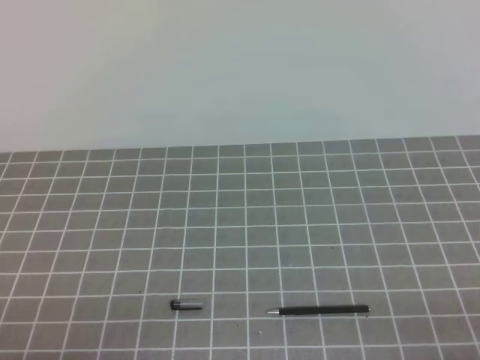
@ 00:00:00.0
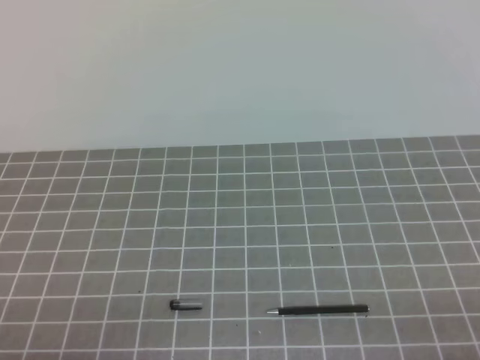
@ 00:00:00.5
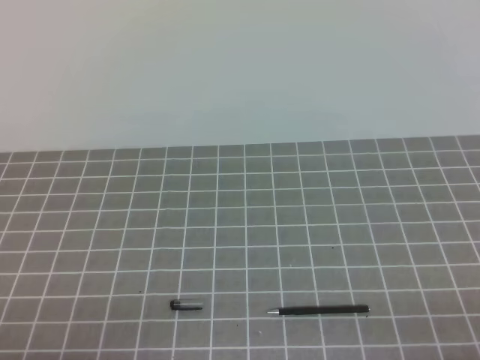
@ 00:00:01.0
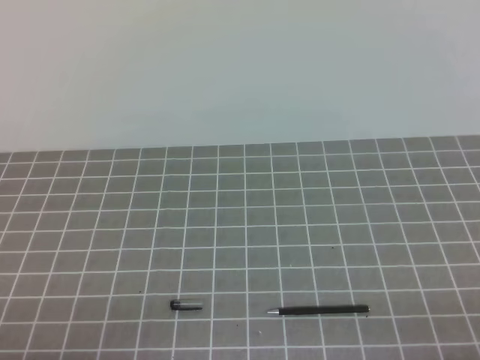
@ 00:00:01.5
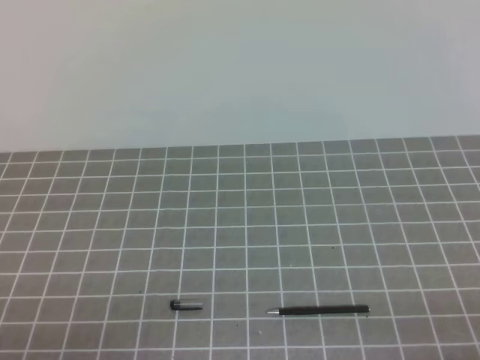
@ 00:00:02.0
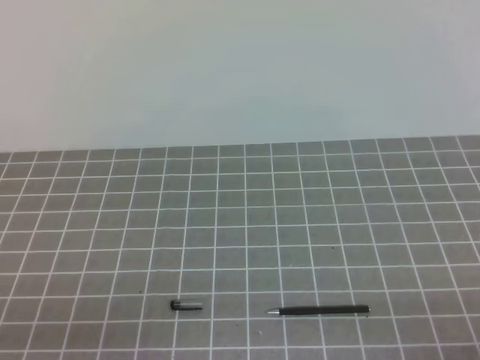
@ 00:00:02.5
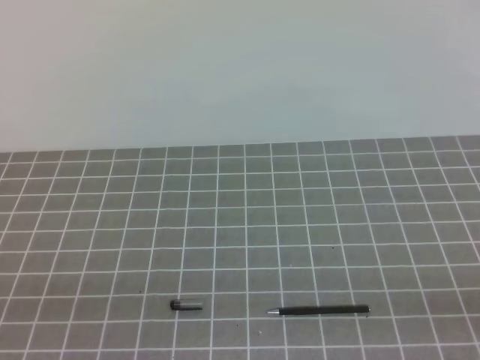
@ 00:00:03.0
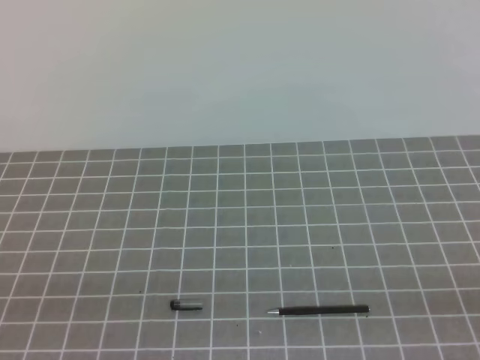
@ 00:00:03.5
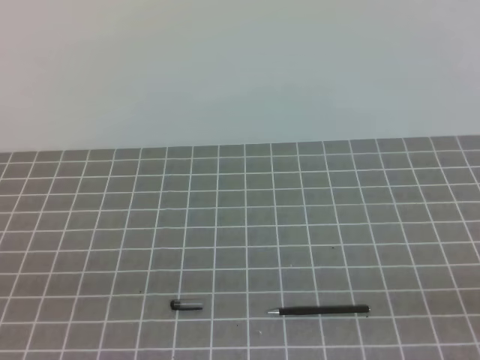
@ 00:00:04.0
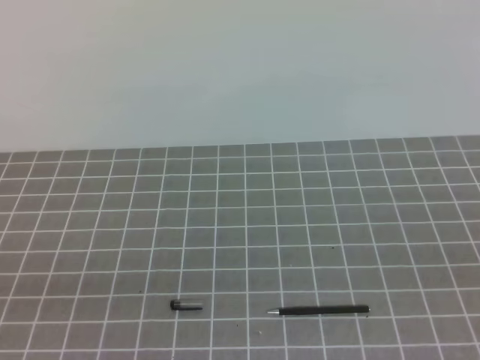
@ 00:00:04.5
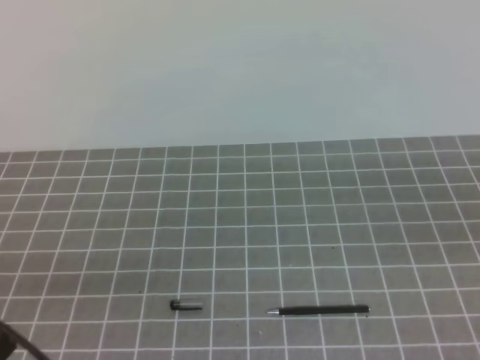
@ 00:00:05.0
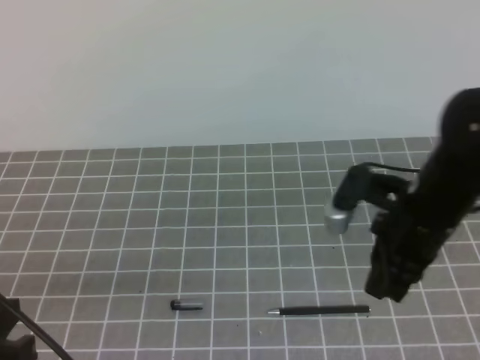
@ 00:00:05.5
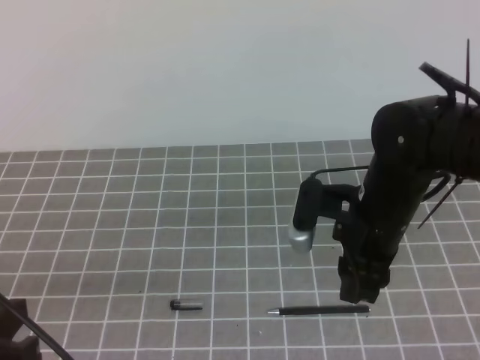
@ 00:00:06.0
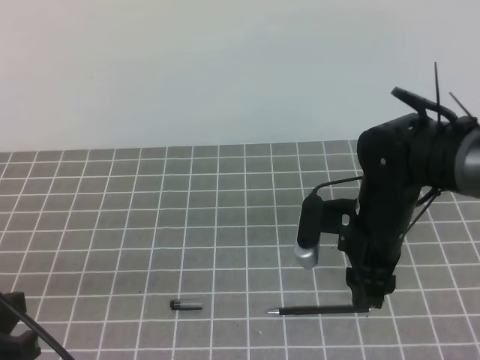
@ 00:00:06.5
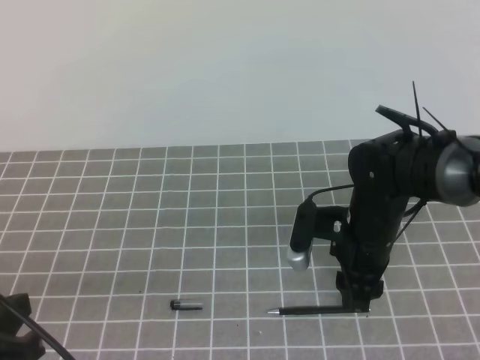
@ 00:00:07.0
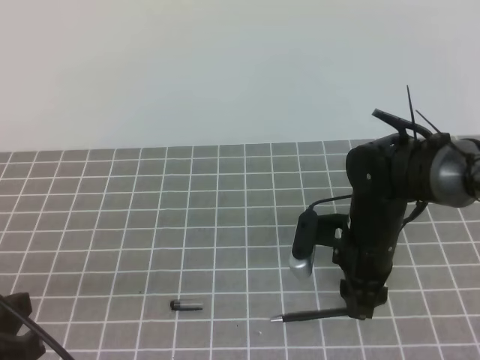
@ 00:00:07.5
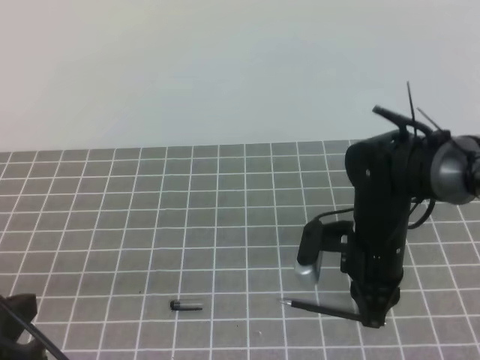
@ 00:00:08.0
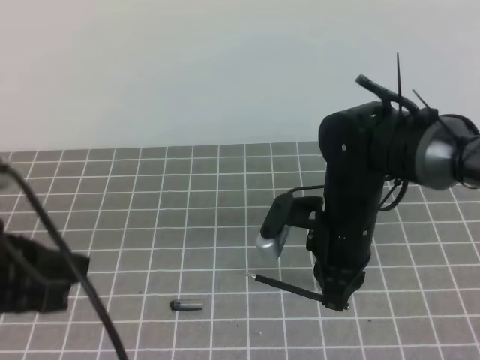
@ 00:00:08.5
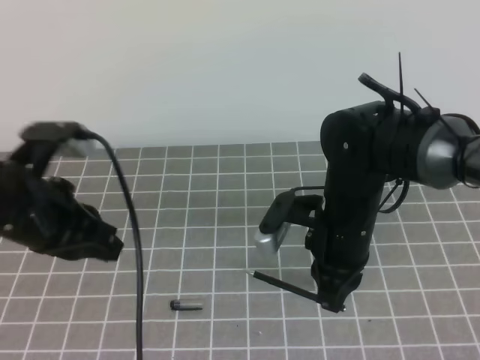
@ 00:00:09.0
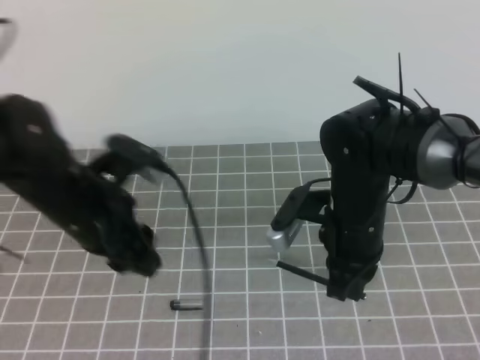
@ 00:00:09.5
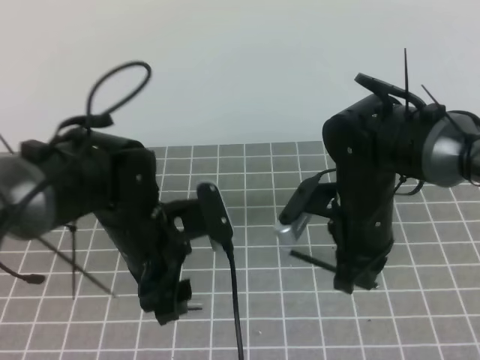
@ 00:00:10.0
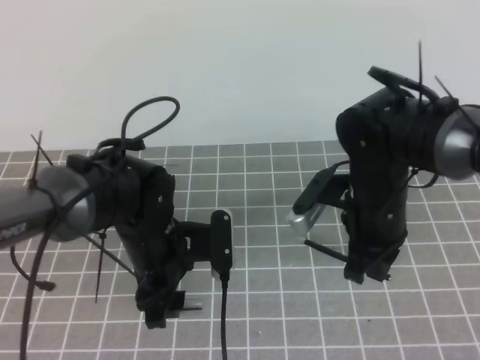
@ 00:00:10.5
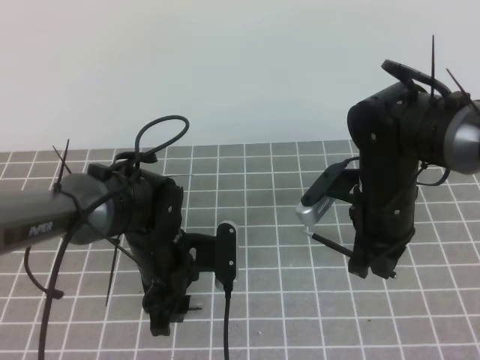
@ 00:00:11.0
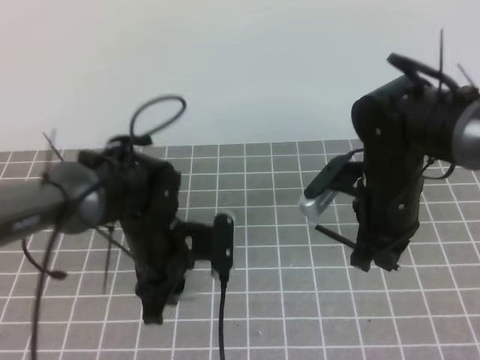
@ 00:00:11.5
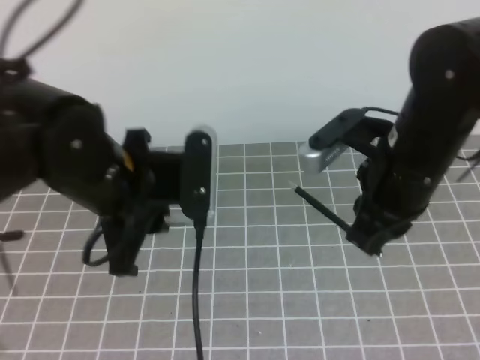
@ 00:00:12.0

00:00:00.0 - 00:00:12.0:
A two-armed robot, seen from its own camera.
Task of the whole recording: on the grey tablecloth, hold the pen cap in one hand and the pen in the other, then cover the pen cap.
00:00:04.0 - 00:00:06.0: The left gripper goes roughly 10 cm forward. The right gripper is displaced forward and to the left by roughly 35 cm, and opens up.
00:00:06.0 - 00:00:08.0: The right gripper goes roughly 5 cm downward, and closes its fingers.
00:00:08.0 - 00:00:10.0: The left gripper moves forward and to the right, approximately 20 cm, and opens up.
00:00:10.0 - 00:00:12.0: The grippers both shift upward by some 5 cm. The left gripper closes up.

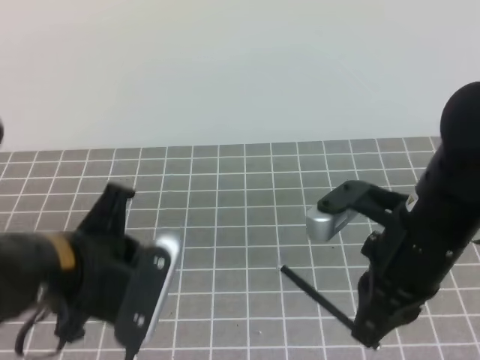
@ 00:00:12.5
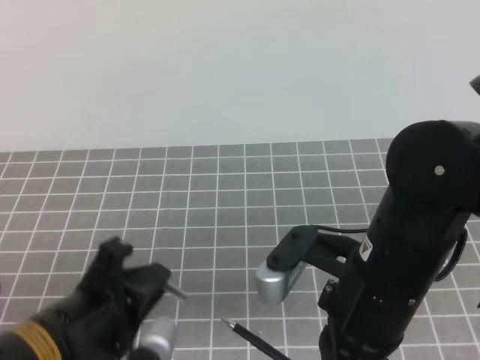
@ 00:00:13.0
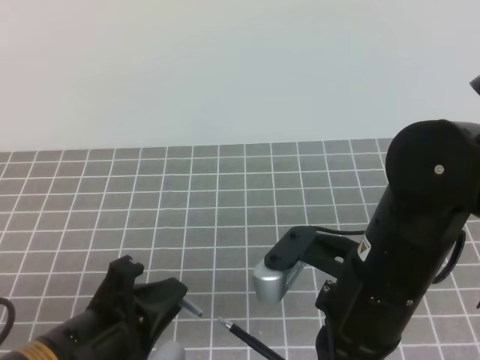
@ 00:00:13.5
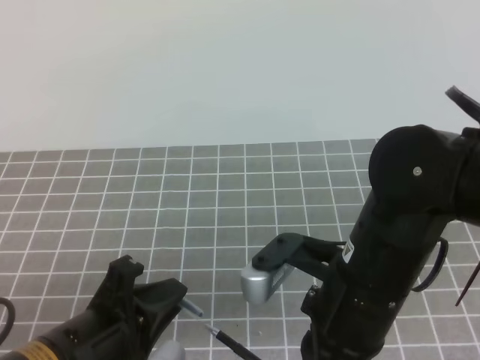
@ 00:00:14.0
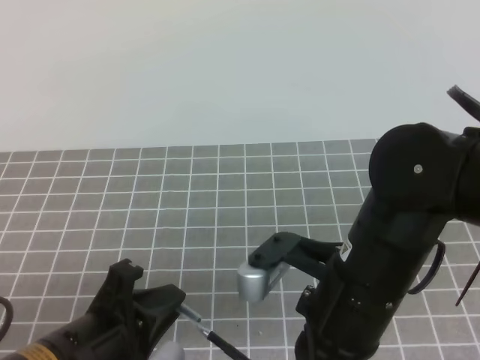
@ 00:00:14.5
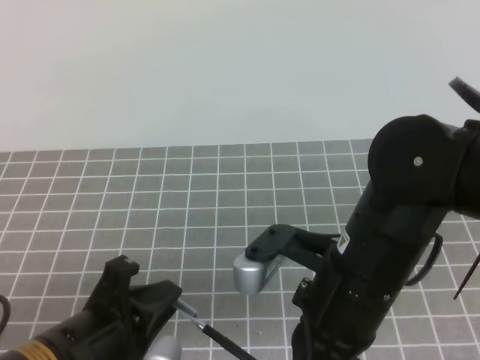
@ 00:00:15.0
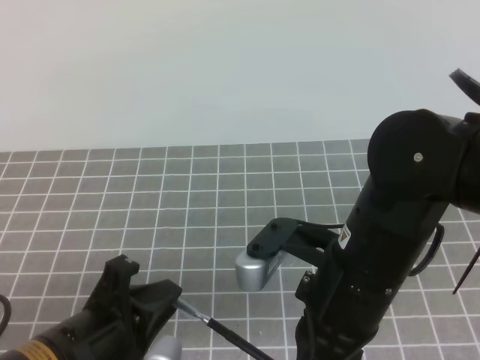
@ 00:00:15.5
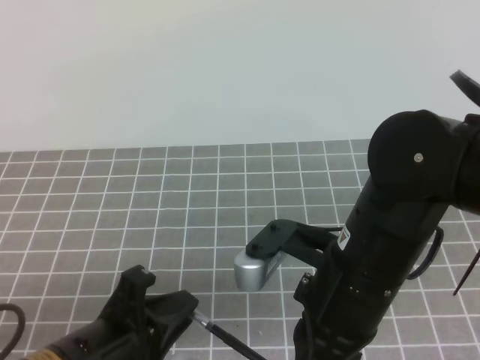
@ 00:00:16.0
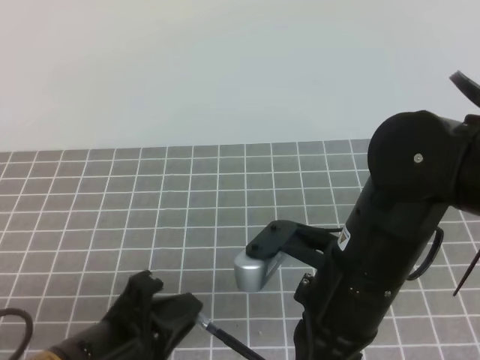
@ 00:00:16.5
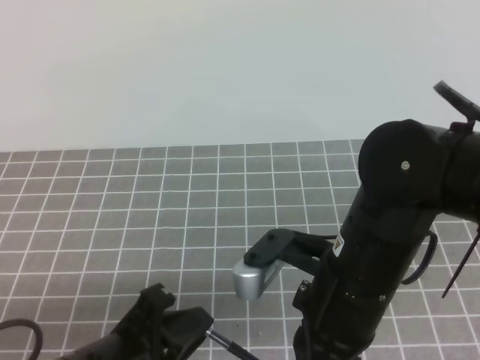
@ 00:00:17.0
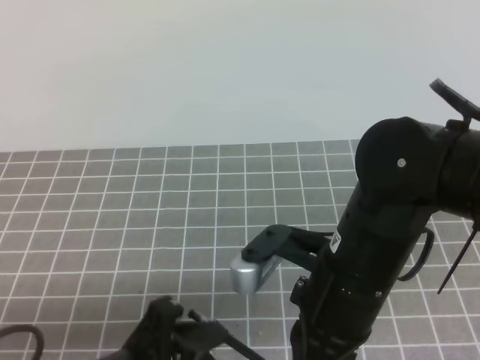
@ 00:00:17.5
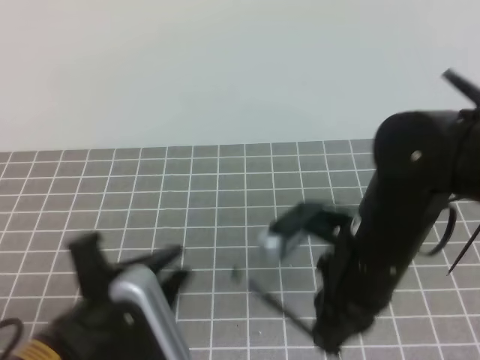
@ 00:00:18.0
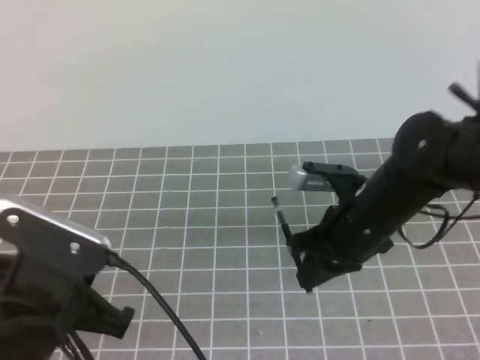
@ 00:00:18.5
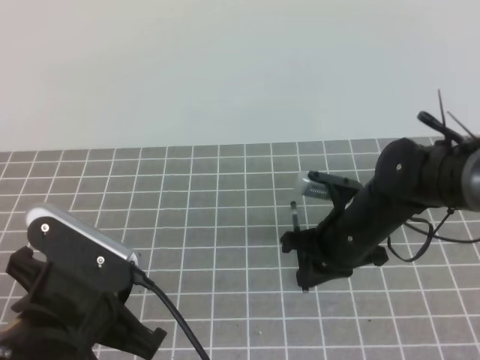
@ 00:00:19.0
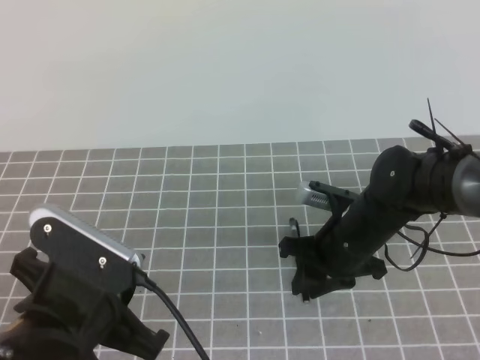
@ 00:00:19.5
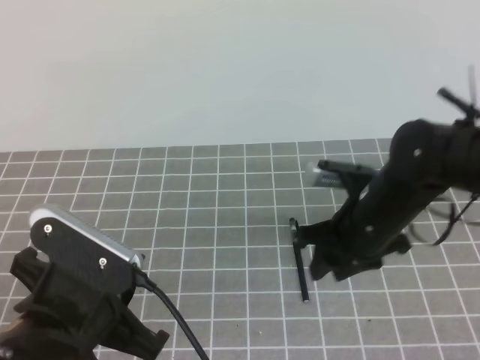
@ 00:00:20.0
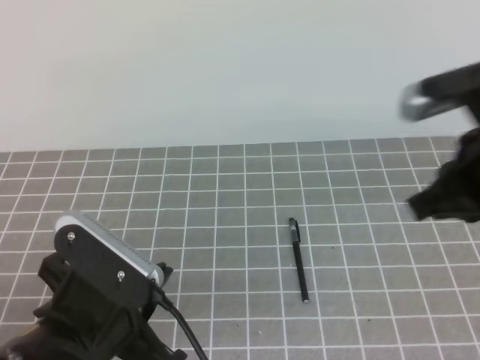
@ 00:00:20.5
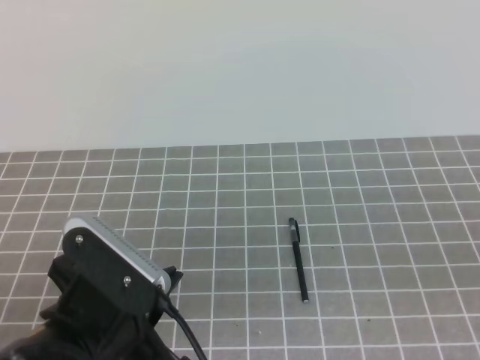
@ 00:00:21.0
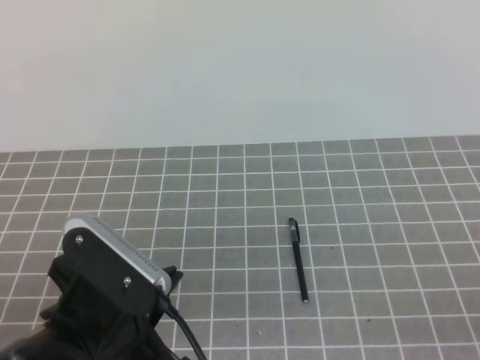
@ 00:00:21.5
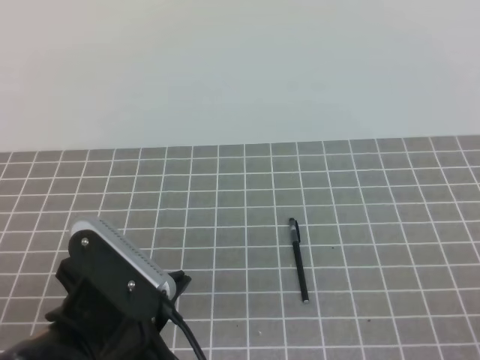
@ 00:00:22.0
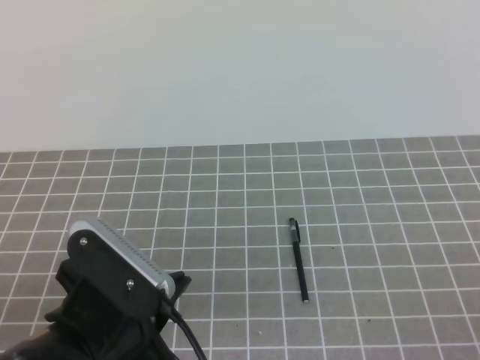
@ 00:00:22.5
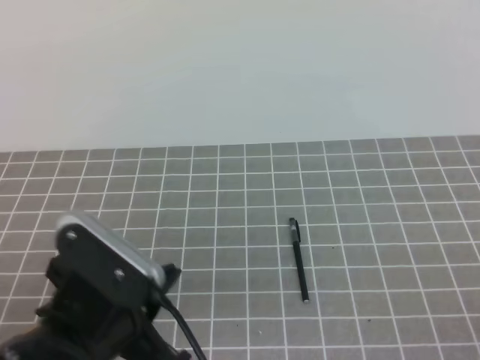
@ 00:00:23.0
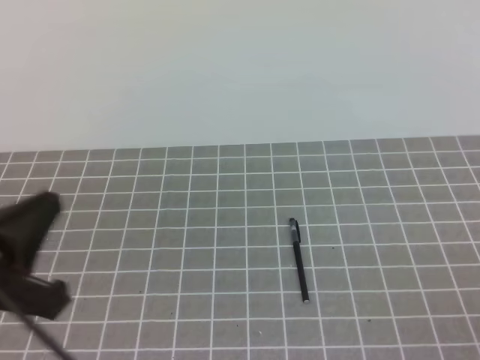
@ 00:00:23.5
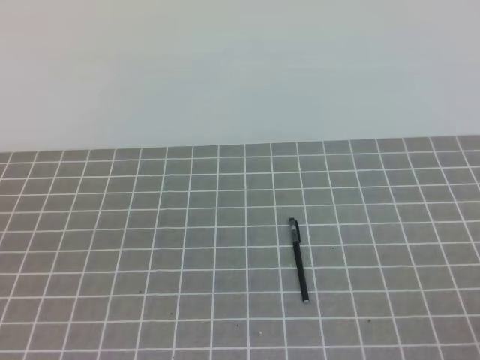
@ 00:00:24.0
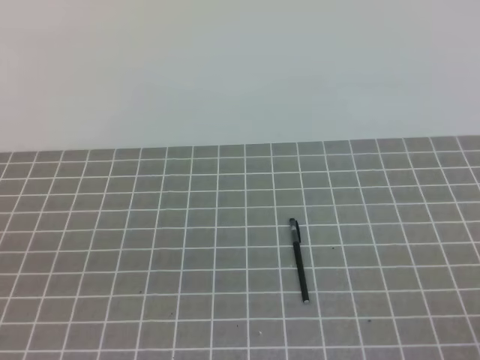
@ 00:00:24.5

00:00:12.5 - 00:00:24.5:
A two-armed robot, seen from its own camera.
Task of the whole recording: on the grey tablecloth, hold the pen cap in one hand and the pen in the other, then cover the pen cap.
00:00:12.5 - 00:00:14.5: The right gripper moves to the left, approximately 5 cm. Meanwhile the left gripper is displaced backward and downward by some 10 cm.
00:00:14.5 - 00:00:16.5: The grippers make only small movements.
00:00:16.5 - 00:00:18.5: The right gripper moves forward and downward, some 15 cm; the left gripper moves approximately 5 cm, and opens and closes again.
00:00:18.5 - 00:00:20.5: The right gripper shifts roughly 15 cm upward, to the right and backward, and opens, then closes again.
00:00:20.5 - 00:00:22.5: The right gripper travels backward and to the right by roughly 25 cm.
00:00:22.5 - 00:00:24.5: The left gripper is displaced to the left, backward and upward by about 15 cm.
